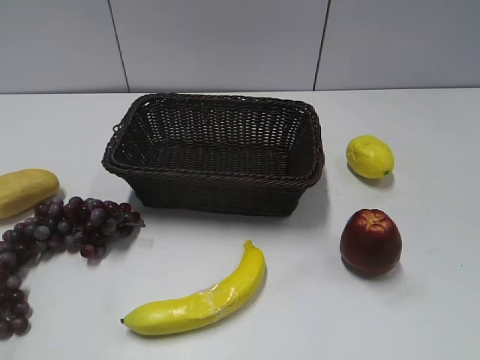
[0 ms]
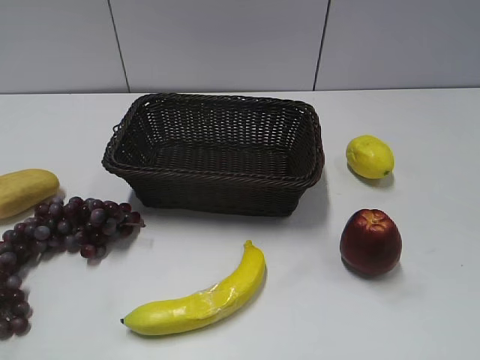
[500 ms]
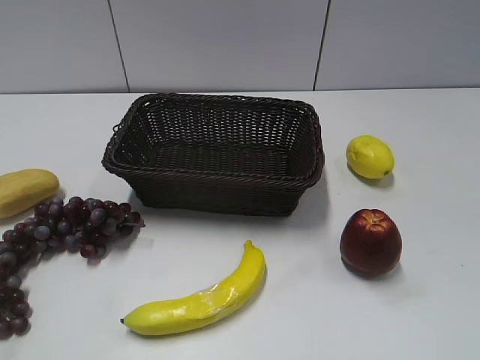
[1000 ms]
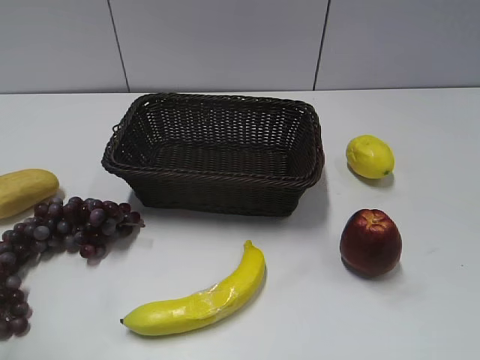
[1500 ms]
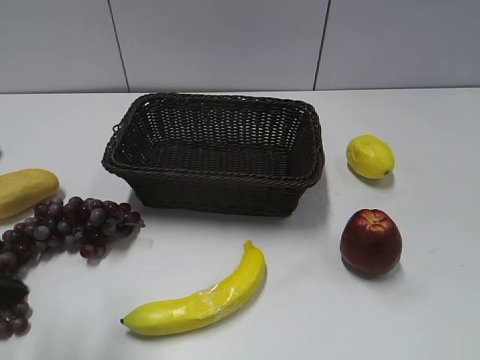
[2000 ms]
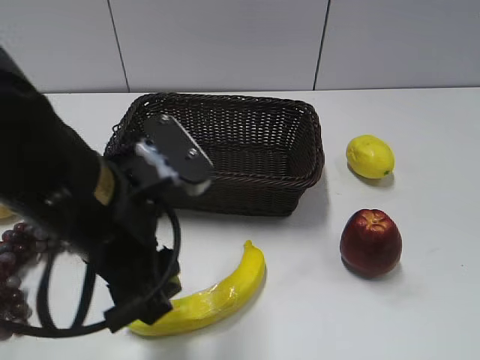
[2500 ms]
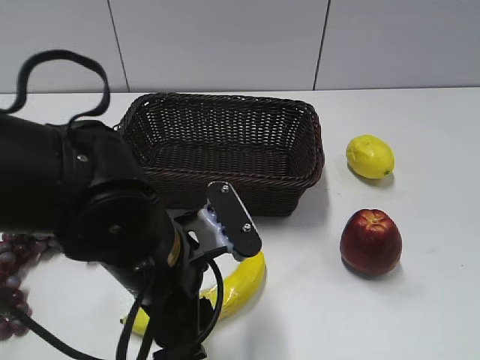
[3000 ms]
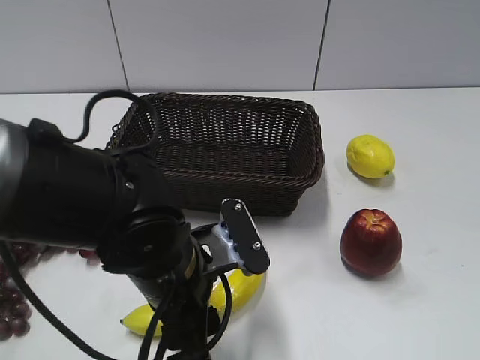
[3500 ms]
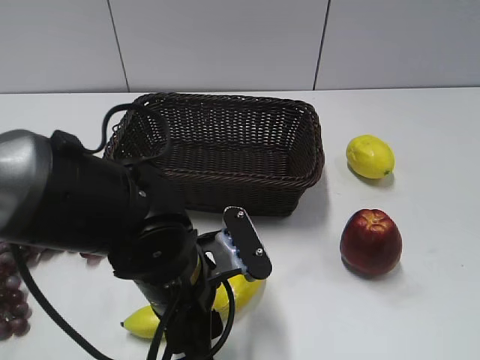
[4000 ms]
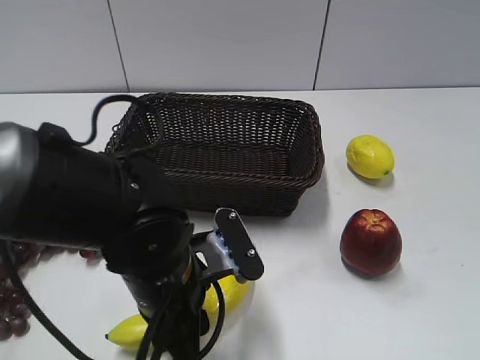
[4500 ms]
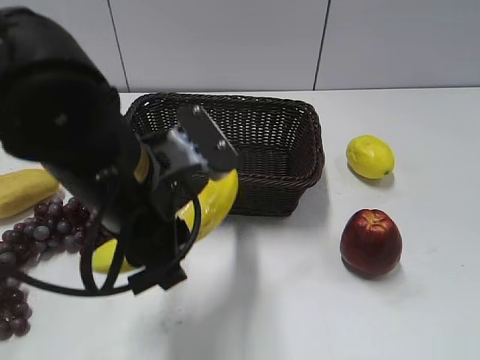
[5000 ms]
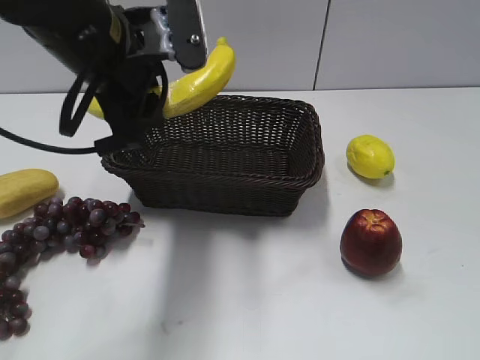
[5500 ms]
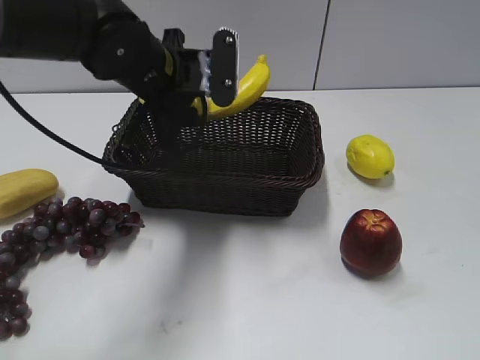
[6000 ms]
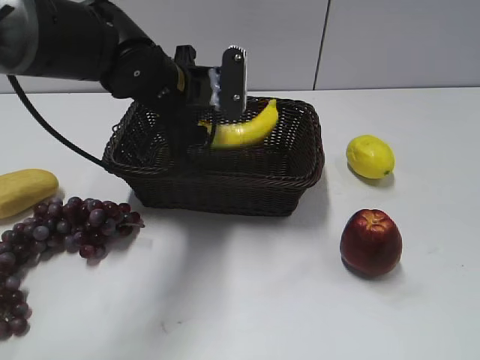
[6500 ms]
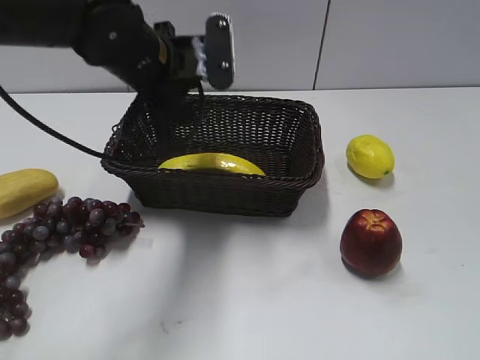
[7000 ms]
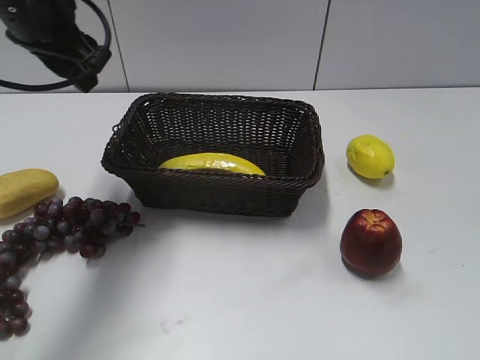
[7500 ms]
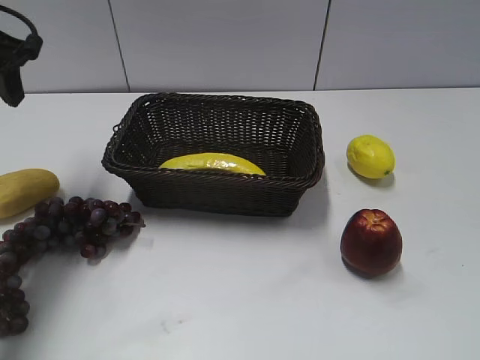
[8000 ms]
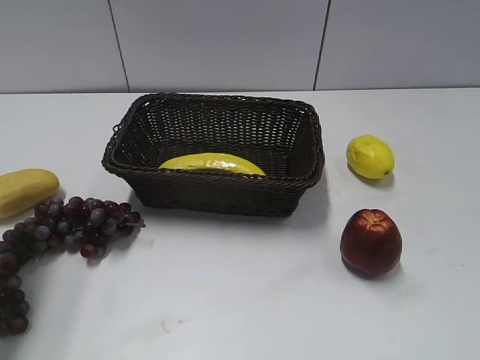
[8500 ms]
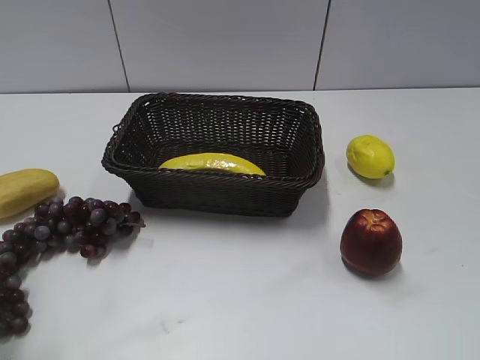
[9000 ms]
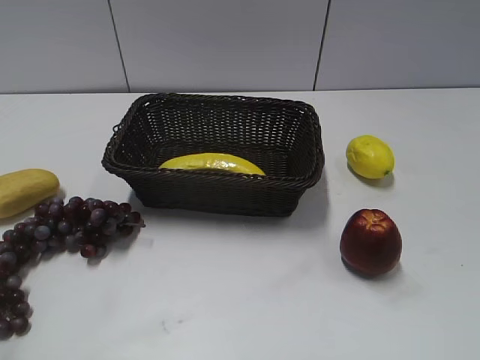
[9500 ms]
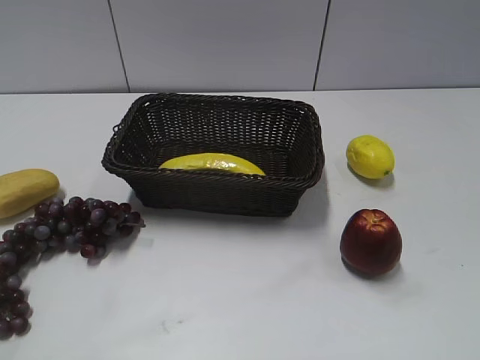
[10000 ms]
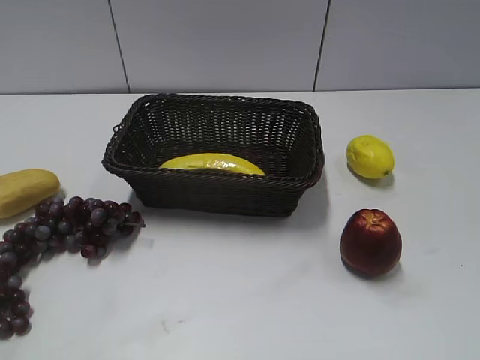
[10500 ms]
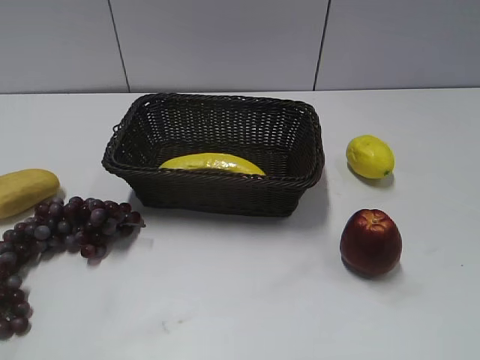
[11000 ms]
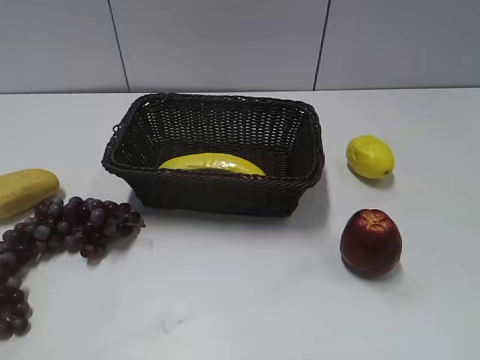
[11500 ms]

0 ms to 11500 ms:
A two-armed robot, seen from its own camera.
Step, 2000 ms to 4000 ms: Grasp the banana with left gripper.
Step, 4500 ms to 6500 ms: Place the banana in the basket with left gripper.
2000 ms to 4000 ms: The left gripper is displaced to the right and downward by roughly 20 cm.
4000 ms to 6000 ms: The left gripper heads forward and upward, covering about 20 cm, and closes its fingers.
6000 ms to 7500 ms: The left gripper travels to the left and upward by roughly 15 cm, and opens up.
7500 ms to 9500 ms: The left gripper goes some 30 cm backward and to the left.

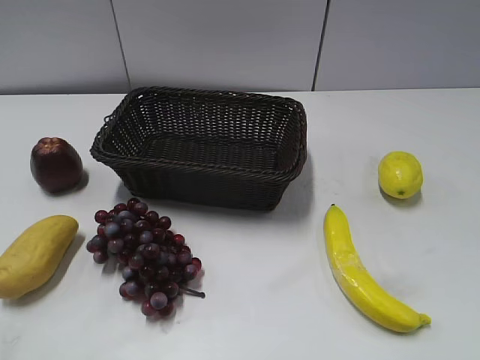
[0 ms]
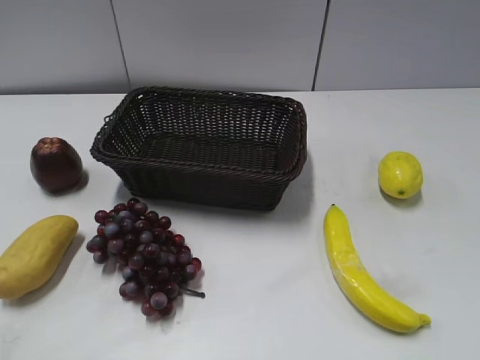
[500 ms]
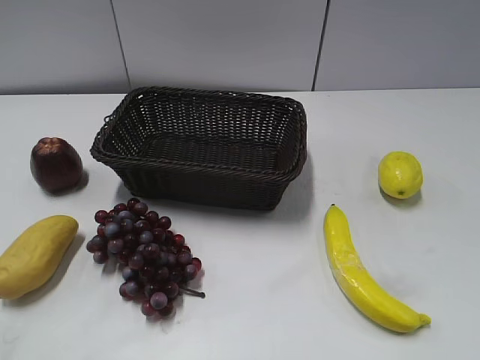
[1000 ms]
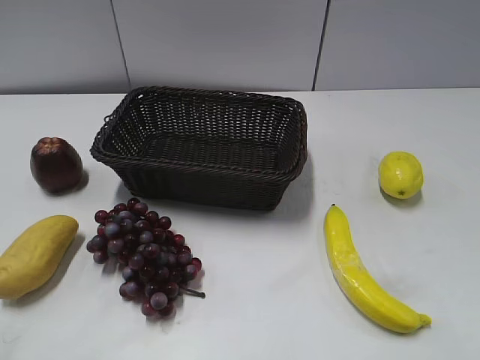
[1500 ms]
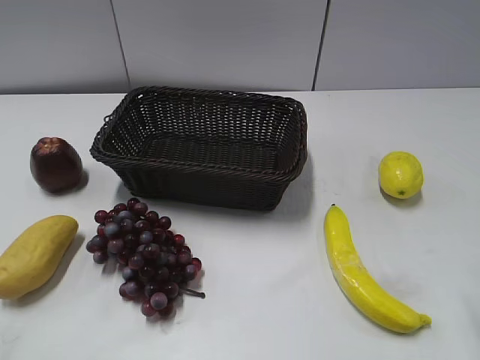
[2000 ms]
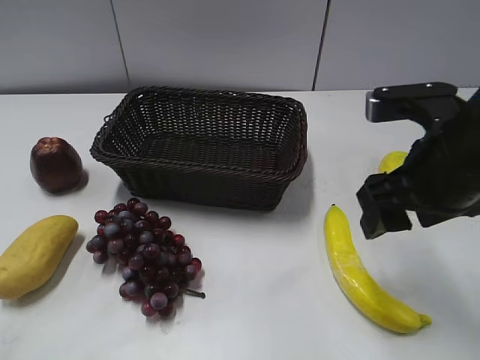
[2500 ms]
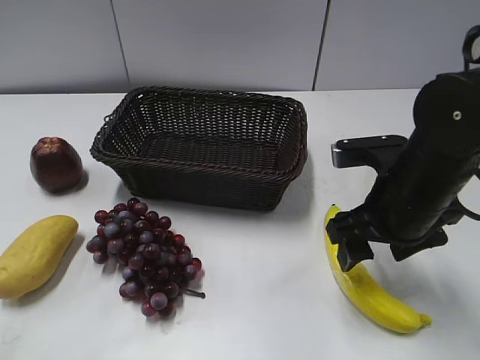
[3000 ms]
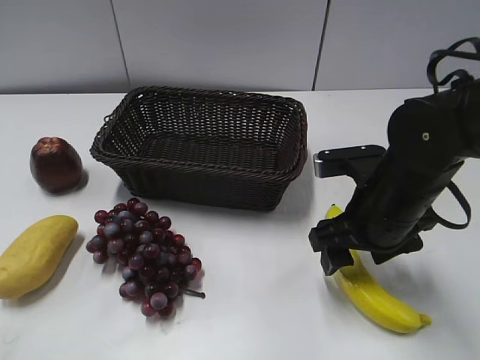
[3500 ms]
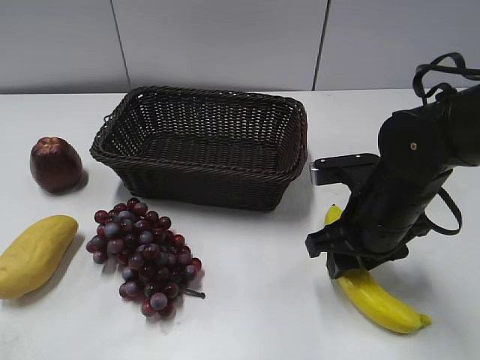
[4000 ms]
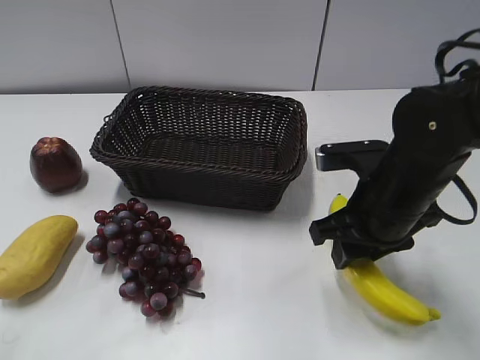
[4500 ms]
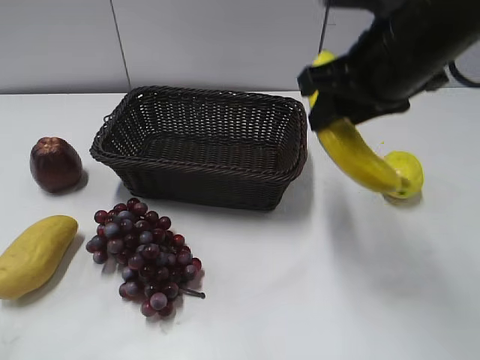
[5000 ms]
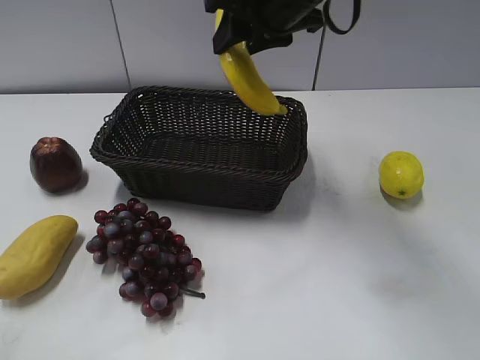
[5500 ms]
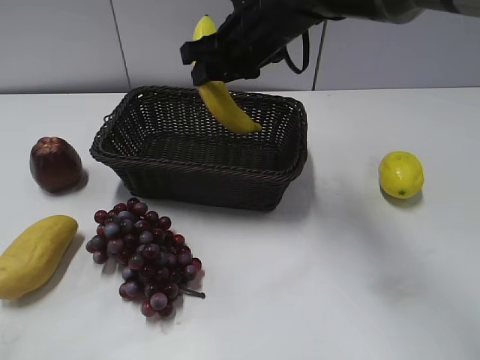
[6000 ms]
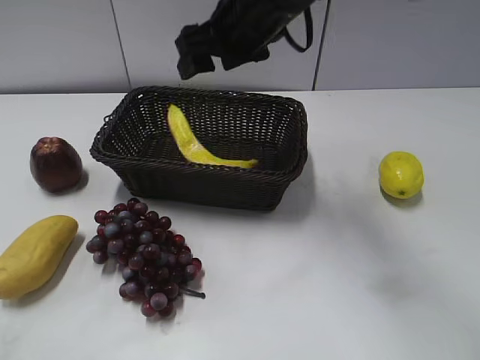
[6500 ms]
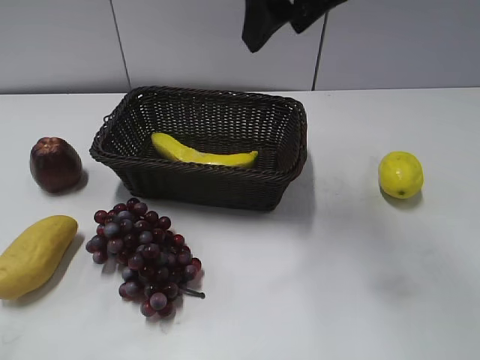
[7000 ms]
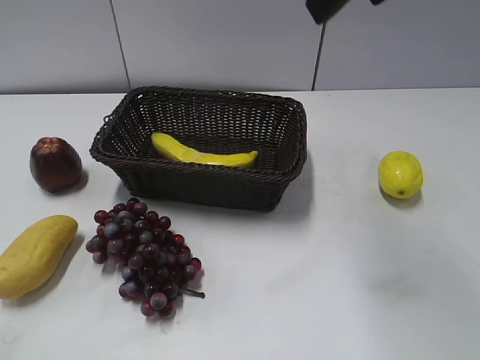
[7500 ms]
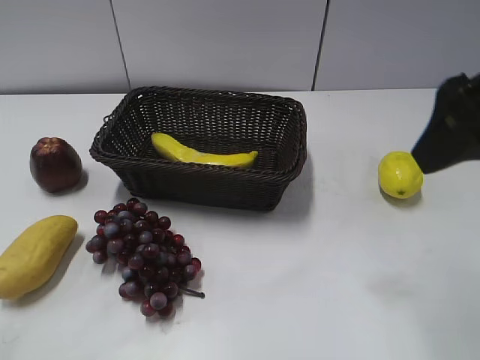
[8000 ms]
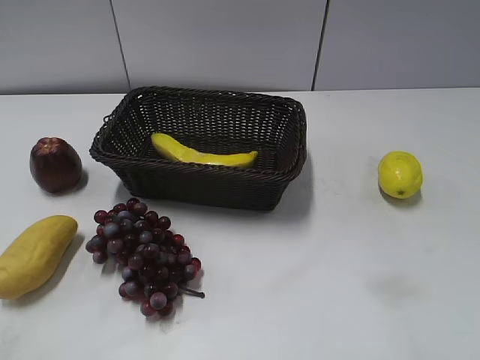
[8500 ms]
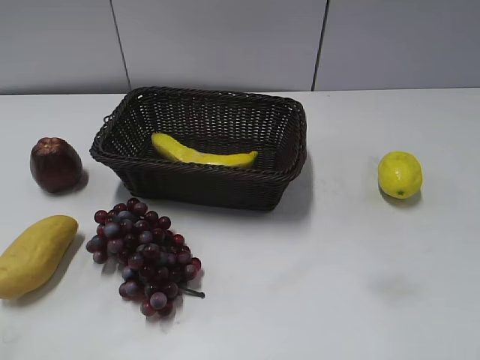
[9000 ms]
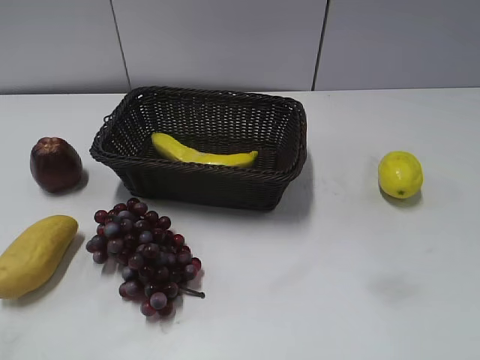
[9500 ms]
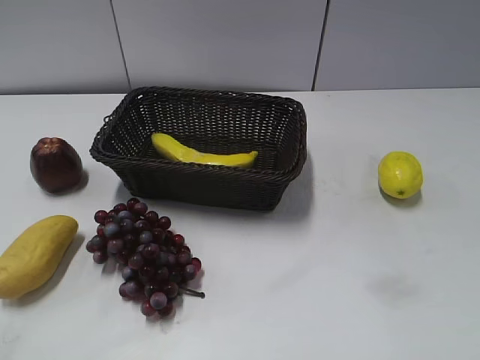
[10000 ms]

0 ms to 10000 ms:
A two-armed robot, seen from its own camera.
Step, 2500 ms to 4000 ms: Grasp the banana with right gripper.
Step, 4500 ms to 6000 ms: Place the banana in the basket with right gripper.
2000 ms to 4000 ms: The right gripper goes approximately 20 cm downward, to the left and forward, and closes up.
4000 ms to 6000 ms: The right gripper is displaced forward, to the left and upward by about 25 cm.
6000 ms to 8000 ms: The right gripper is displaced backward, to the right and upward by about 30 cm, and opens up.
8000 ms to 10000 ms: The right gripper is displaced backward and to the right by approximately 25 cm.
